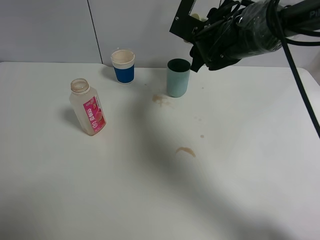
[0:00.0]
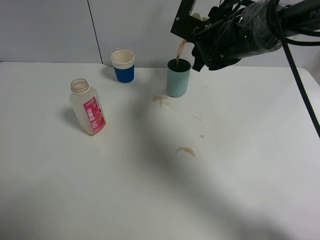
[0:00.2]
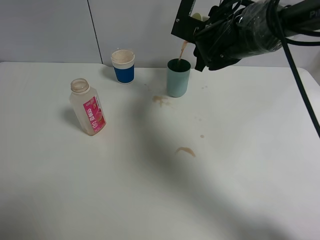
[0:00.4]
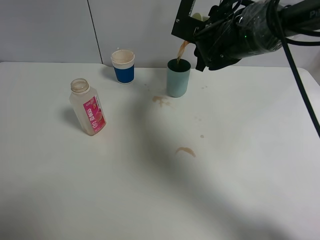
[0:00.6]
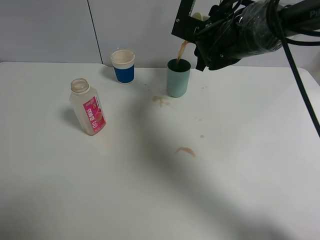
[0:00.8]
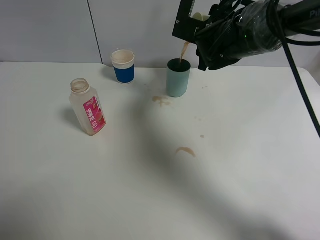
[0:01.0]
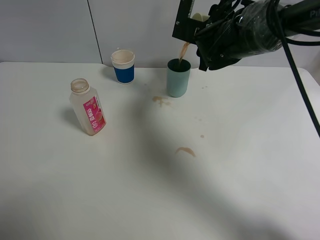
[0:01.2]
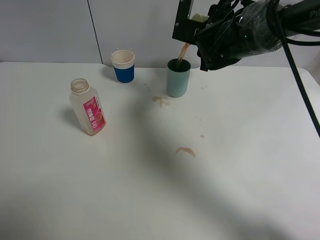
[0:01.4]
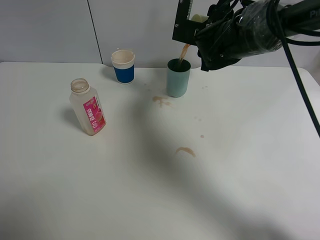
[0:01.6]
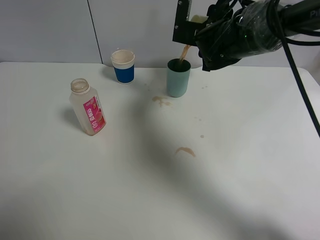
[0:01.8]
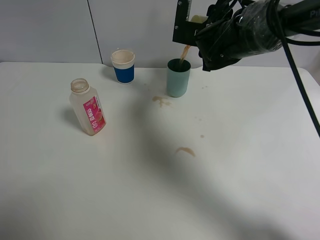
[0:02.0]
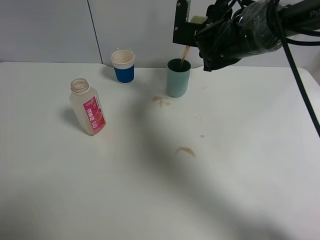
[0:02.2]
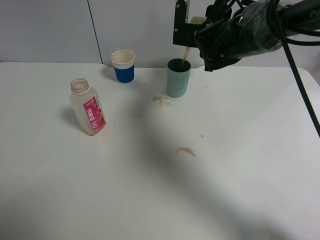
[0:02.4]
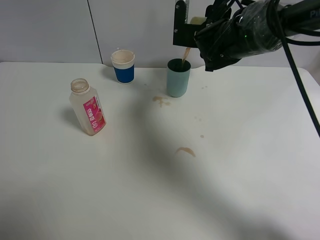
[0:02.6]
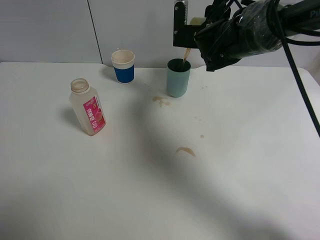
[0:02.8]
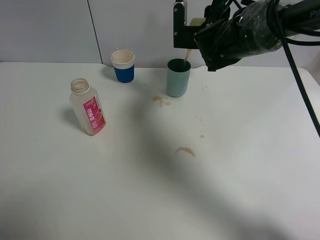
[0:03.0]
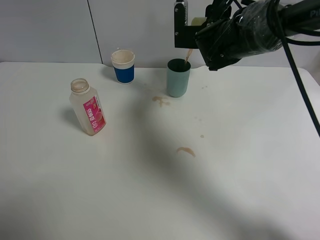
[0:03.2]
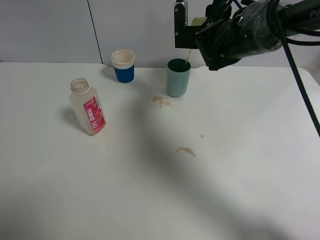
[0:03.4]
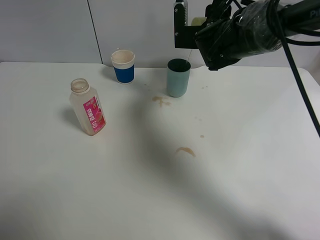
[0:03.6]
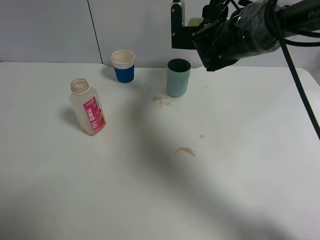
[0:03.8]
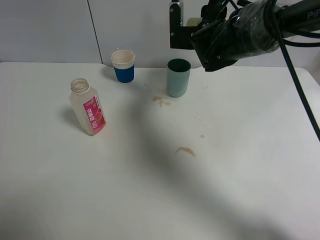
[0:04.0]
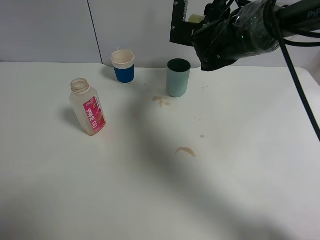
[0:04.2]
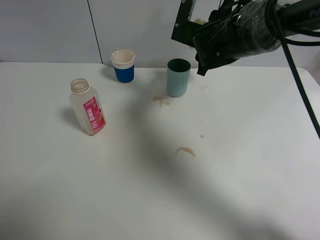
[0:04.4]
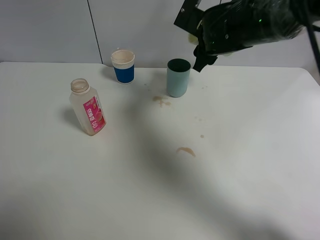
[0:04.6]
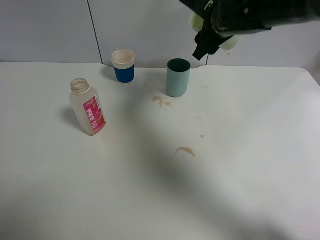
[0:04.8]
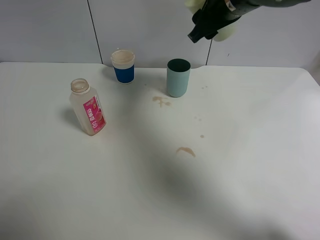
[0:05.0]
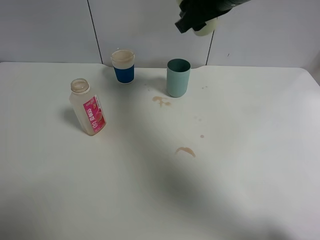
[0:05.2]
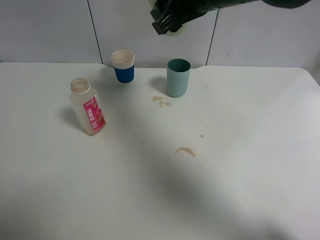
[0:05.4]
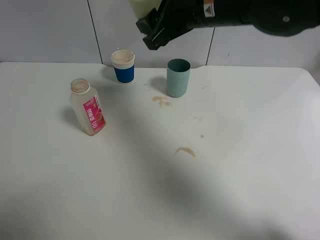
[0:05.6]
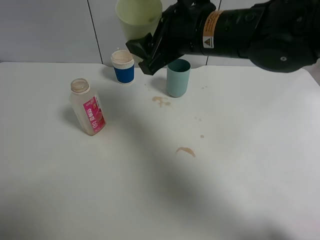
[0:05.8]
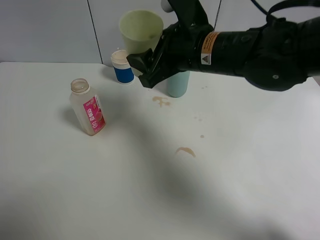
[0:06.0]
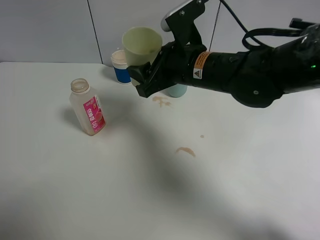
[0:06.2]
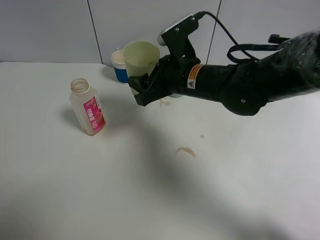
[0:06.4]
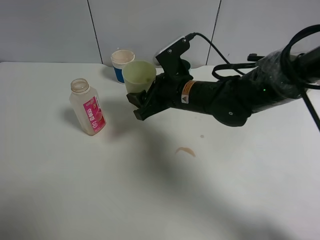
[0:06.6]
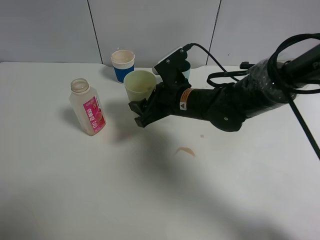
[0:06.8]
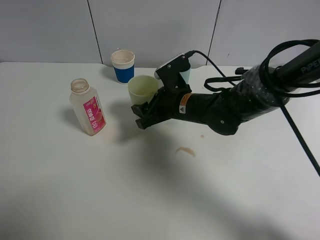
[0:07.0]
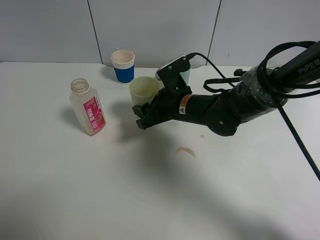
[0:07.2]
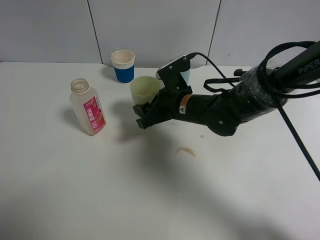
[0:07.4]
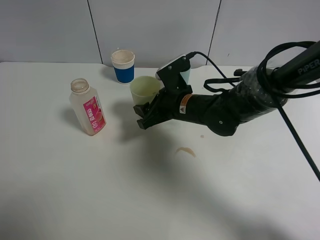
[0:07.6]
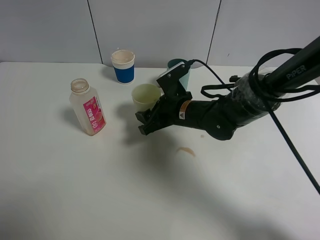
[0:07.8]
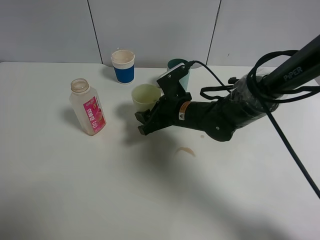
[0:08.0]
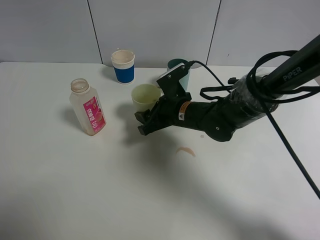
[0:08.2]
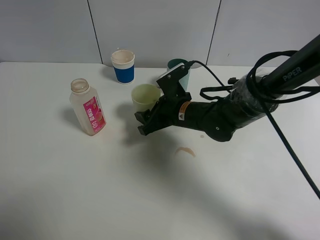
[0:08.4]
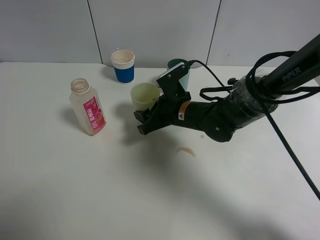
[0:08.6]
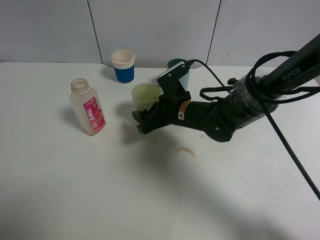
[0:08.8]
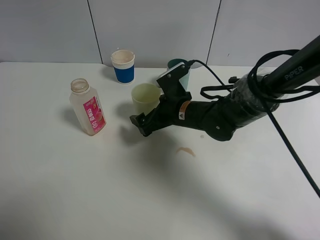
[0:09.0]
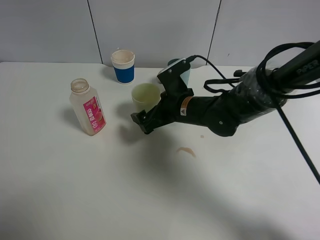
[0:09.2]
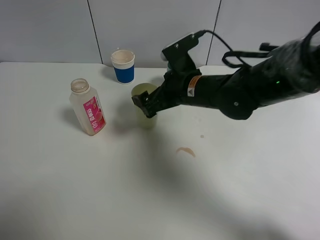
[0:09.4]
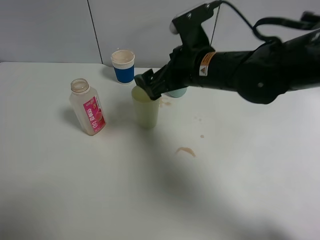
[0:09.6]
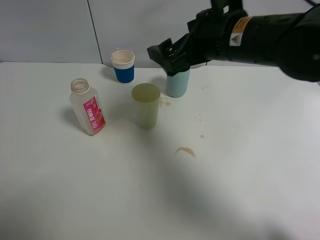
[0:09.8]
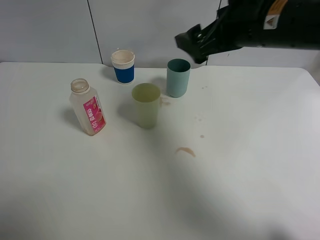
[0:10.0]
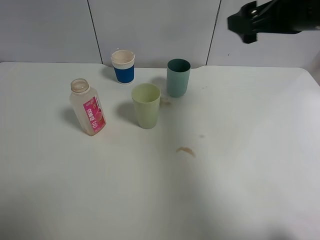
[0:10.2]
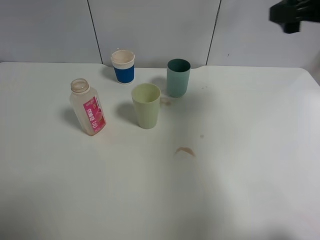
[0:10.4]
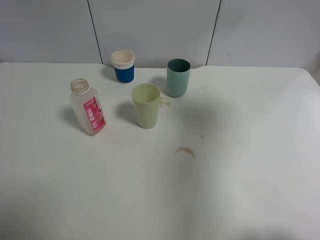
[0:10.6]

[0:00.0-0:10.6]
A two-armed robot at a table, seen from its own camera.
Task of the whole recording: use a clamp to hold the bottle of the drink, pour the beverage into a random cup, then clamp the cup containing the drink and pour the drink into another random cup.
Step, 0:00.0 to 0:04.2: Pour the drink into the blue plastic cup with right gripper.
Step, 0:04.4 to 0:09.0: Place the green plastic cup on the table with right gripper.
0:00.0 to 0:01.6: The grippers make only small movements.
0:01.6 to 0:03.0: The grippers make only small movements.
0:04.6 to 0:06.0: The right gripper shifts roughly 10 cm backward.
0:06.0 to 0:07.6: The right gripper is displaced downward by approximately 15 cm.
0:07.6 to 0:09.0: The right gripper opens.
0:09.0 to 0:10.6: The right gripper is displaced upward, to the right and backward by roughly 40 cm.

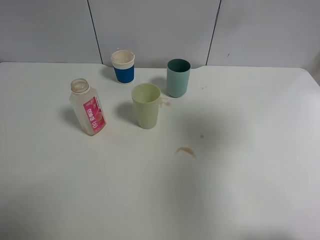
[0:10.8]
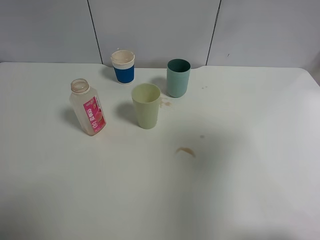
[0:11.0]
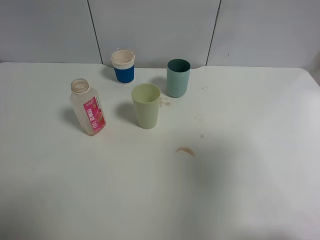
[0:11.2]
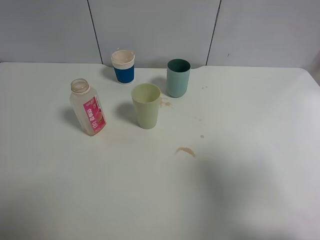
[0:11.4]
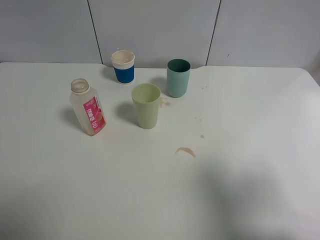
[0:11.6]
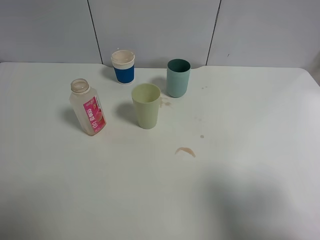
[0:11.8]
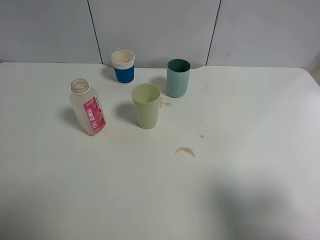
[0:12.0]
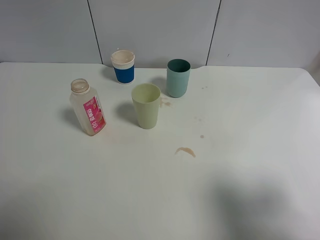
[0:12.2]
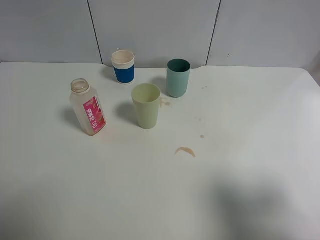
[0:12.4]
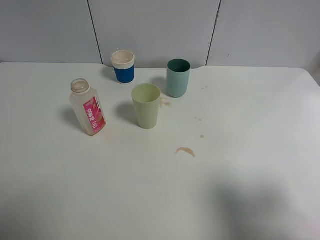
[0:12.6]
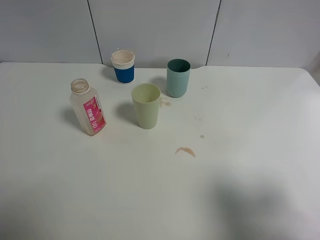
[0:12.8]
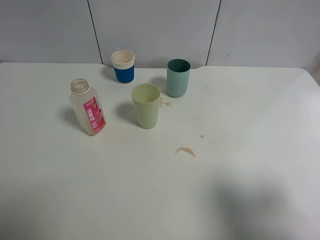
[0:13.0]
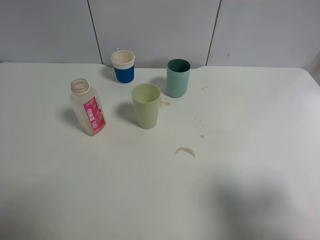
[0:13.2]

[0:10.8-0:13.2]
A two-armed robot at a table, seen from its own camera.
Task of the whole recording: use a clamp to hold the bottle of the drink, pour the beverage into a random cup, then clamp the cup containing the drink and pour the drink into another random cup.
0:10.8 to 0:12.0: The right gripper heads backward and downward, covering approximately 15 cm.
0:12.0 to 0:13.2: Neither gripper changes place.

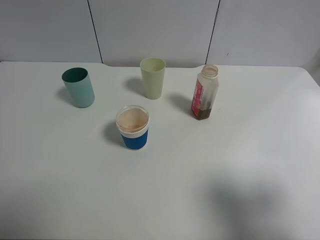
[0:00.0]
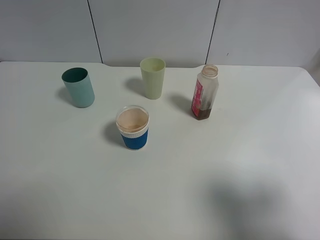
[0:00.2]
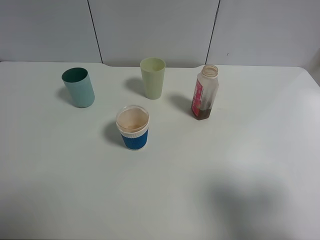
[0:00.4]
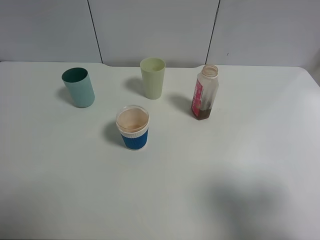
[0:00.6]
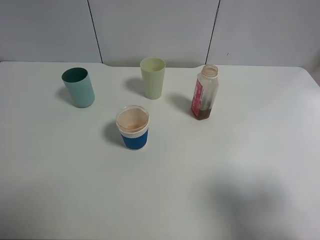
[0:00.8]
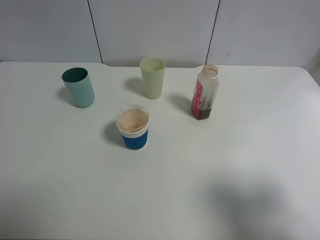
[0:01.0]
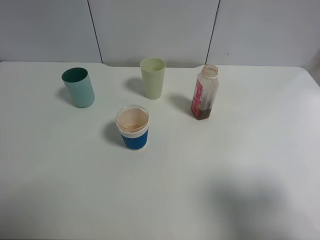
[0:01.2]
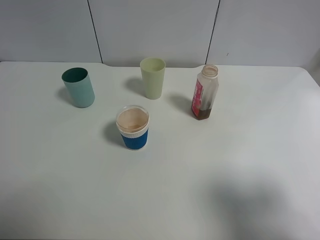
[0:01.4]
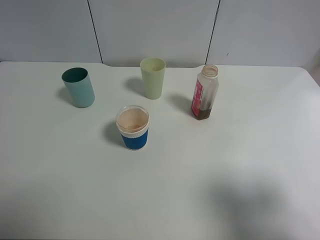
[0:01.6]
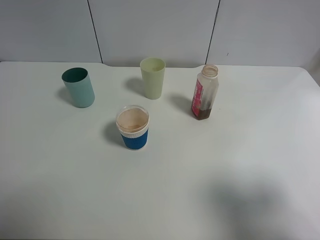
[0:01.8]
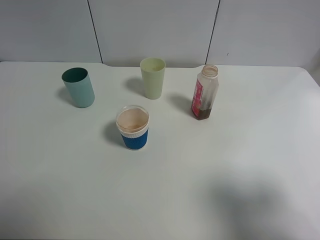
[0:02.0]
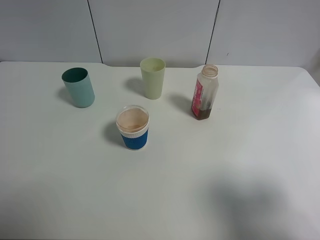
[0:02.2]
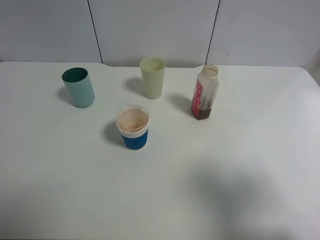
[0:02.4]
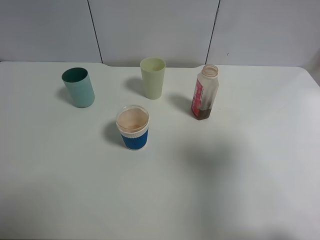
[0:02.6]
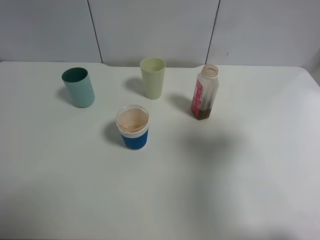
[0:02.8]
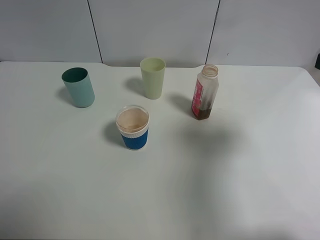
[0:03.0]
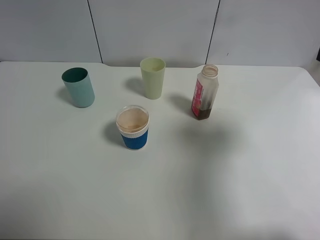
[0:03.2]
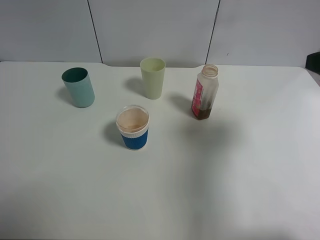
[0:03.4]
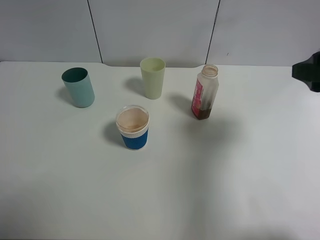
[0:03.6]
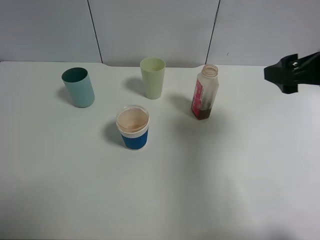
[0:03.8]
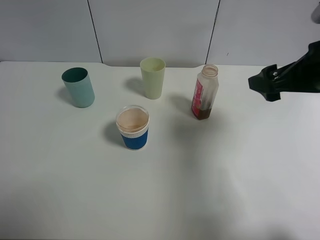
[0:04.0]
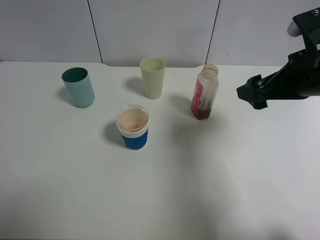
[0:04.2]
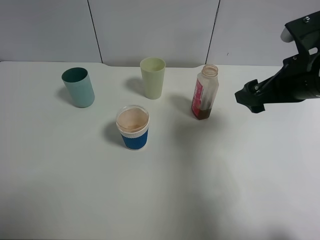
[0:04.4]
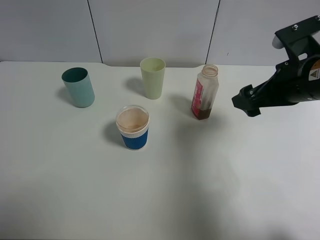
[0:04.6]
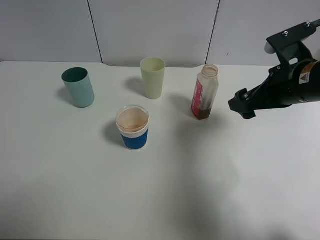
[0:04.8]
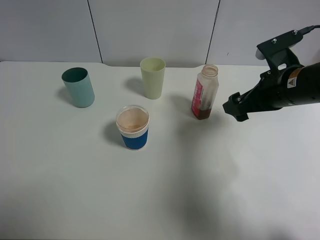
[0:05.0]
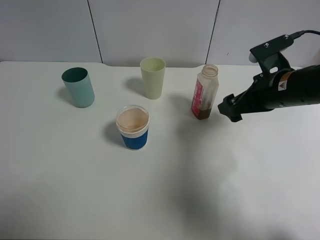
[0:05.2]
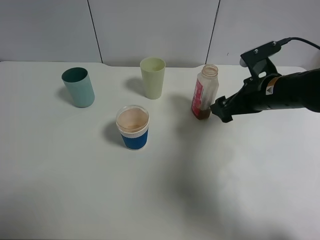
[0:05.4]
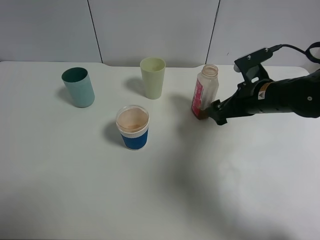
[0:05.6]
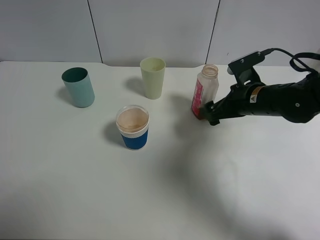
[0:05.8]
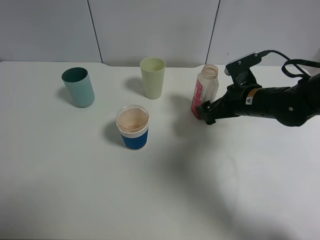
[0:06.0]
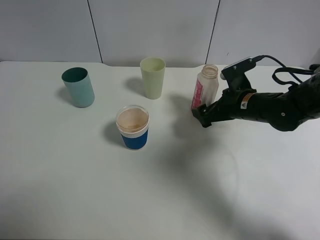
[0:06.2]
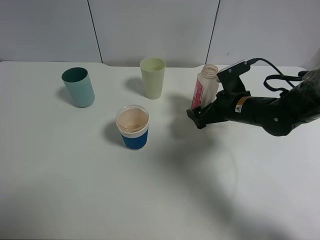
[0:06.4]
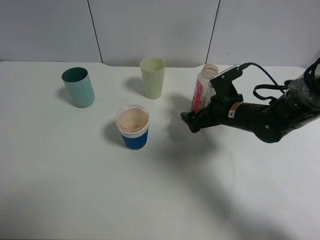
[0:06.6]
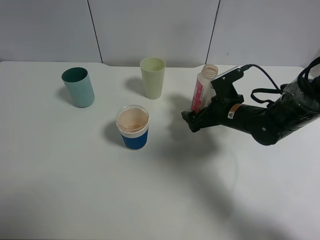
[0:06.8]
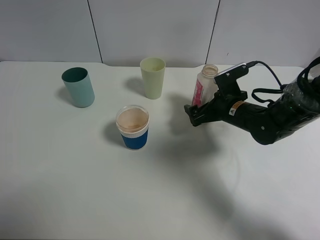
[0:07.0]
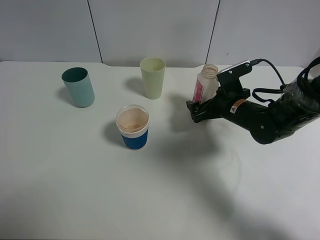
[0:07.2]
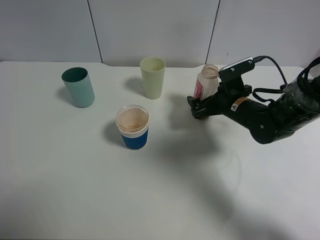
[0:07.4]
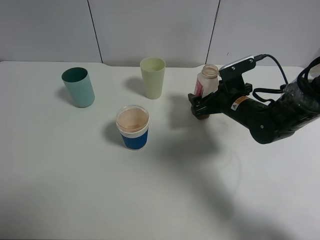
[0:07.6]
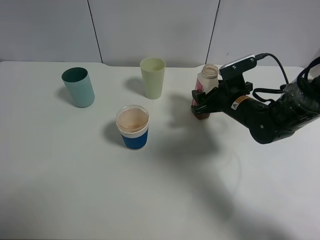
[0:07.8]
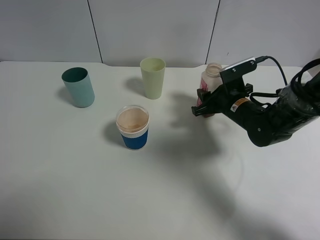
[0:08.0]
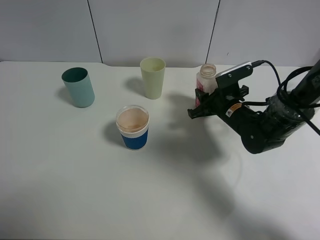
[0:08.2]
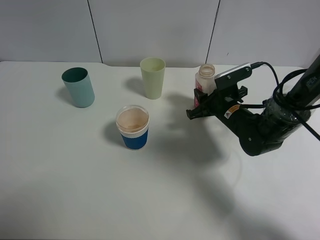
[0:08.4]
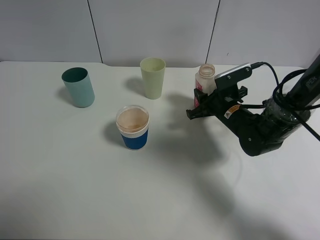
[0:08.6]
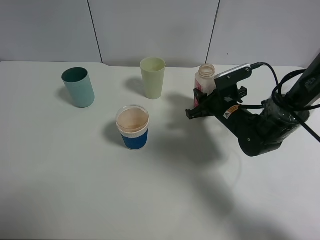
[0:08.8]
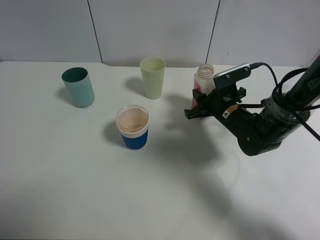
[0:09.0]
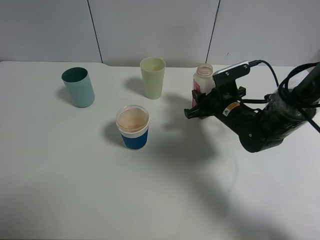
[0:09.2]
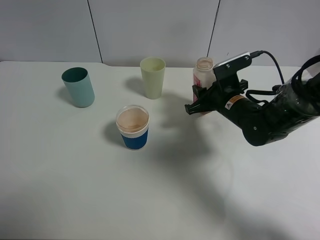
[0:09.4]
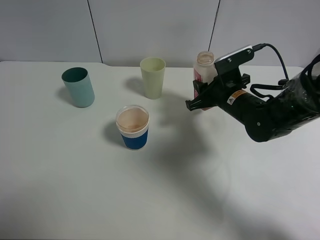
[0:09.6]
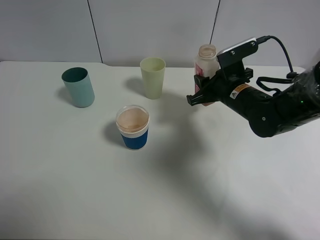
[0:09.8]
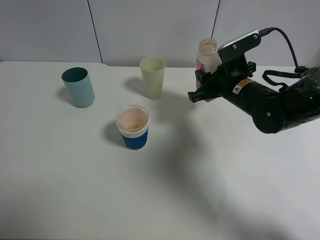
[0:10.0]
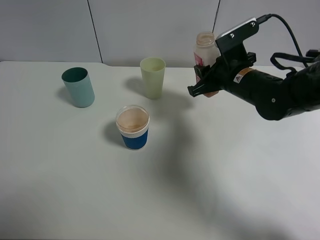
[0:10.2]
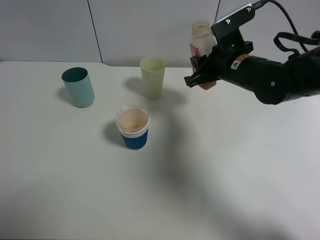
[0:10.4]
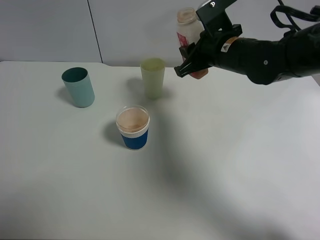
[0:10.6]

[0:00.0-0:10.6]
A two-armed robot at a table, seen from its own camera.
Task of the whole recording: use a clamp to hold the bottle of the drink, pour the beverage into a random cup, then clamp the cup containing the drink and pour the drink into another random cup.
Step, 0:00.0 to 0:09.4: Pick up the drink bottle with right gripper.
0:00.0 to 0:01.6: Both grippers stay put.
0:01.6 to 0:03.0: The right gripper travels forward by roughly 15 cm.
0:03.0 to 0:04.6: The right gripper travels forward, downward and to the left by approximately 15 cm.
0:04.6 to 0:06.0: The right gripper is displaced downward and forward by some 10 cm.
0:06.0 to 0:07.6: The grippers stay close to where they were, moving slightly.
0:07.6 to 0:09.0: The right gripper closes its fingers.
0:09.0 to 0:10.6: The right gripper travels upward by some 15 cm.
